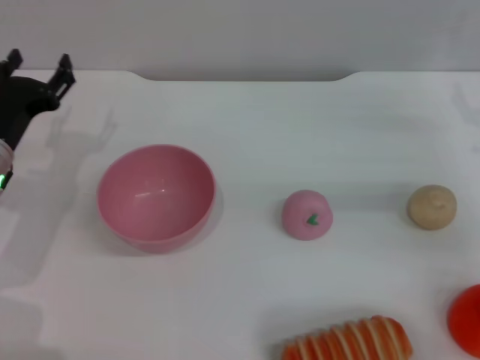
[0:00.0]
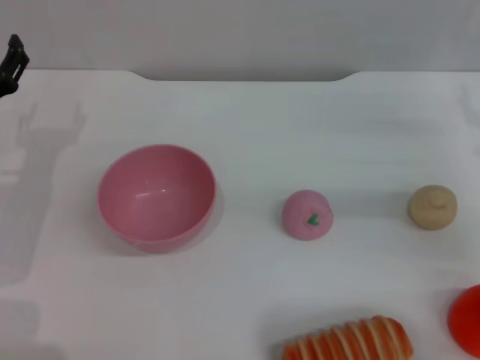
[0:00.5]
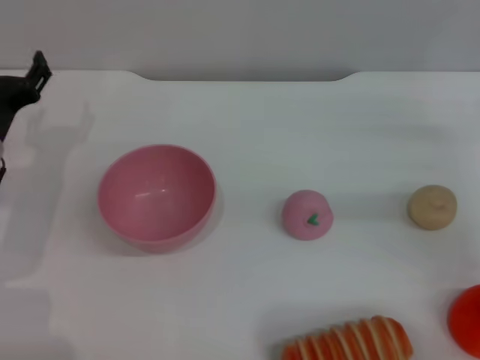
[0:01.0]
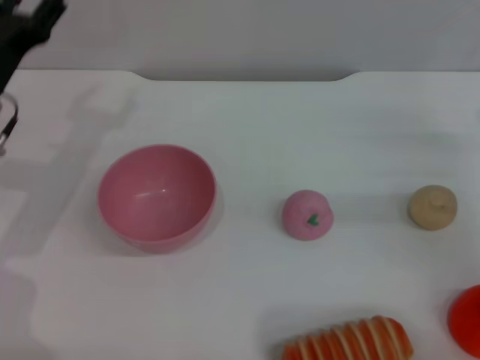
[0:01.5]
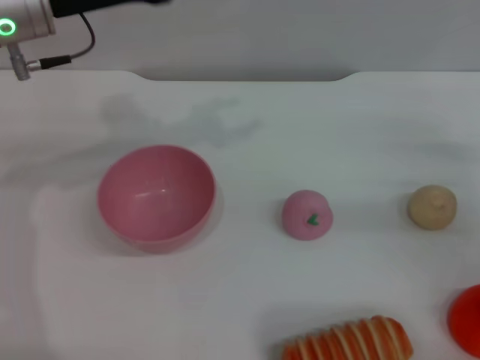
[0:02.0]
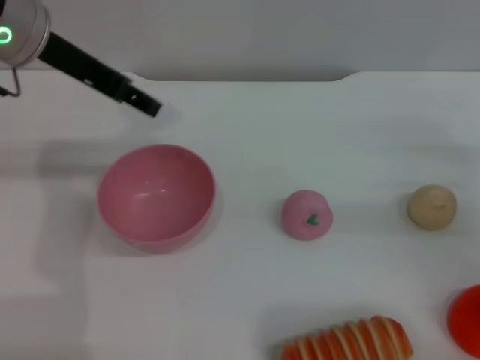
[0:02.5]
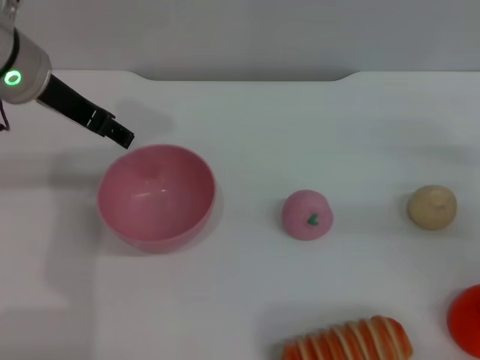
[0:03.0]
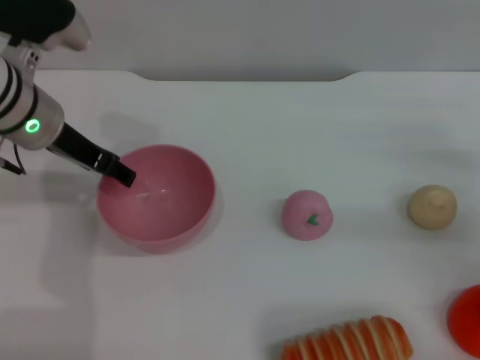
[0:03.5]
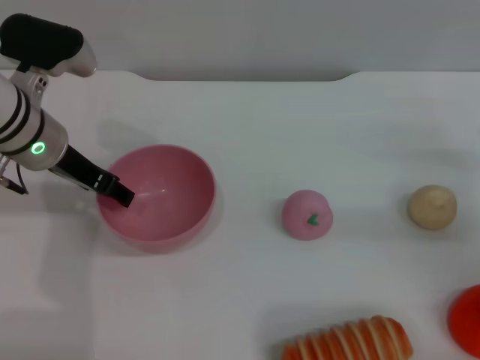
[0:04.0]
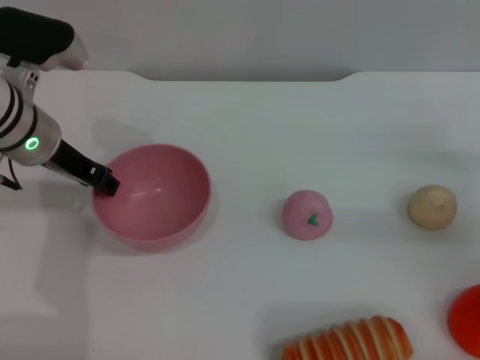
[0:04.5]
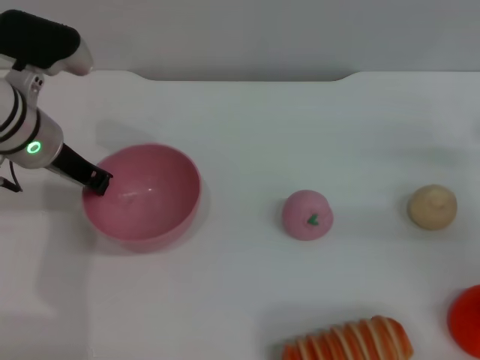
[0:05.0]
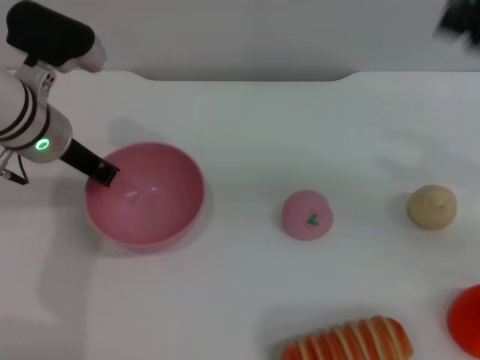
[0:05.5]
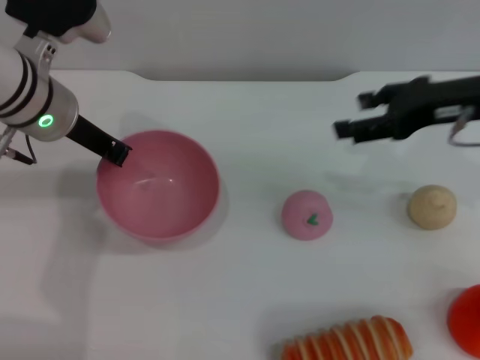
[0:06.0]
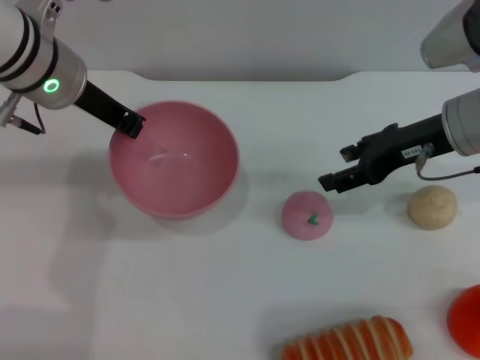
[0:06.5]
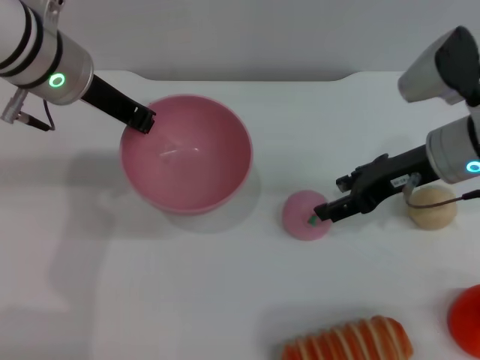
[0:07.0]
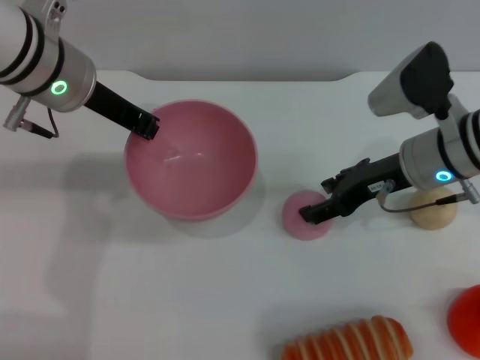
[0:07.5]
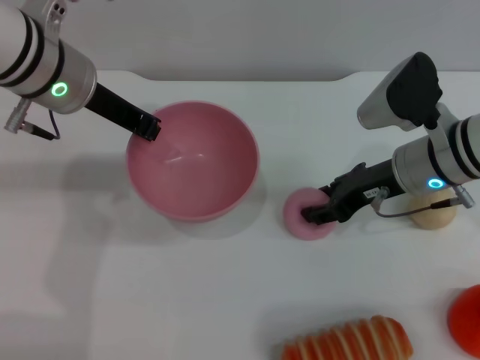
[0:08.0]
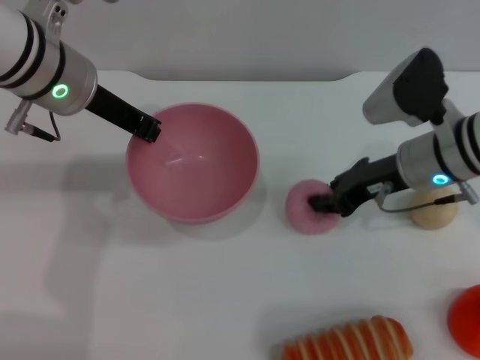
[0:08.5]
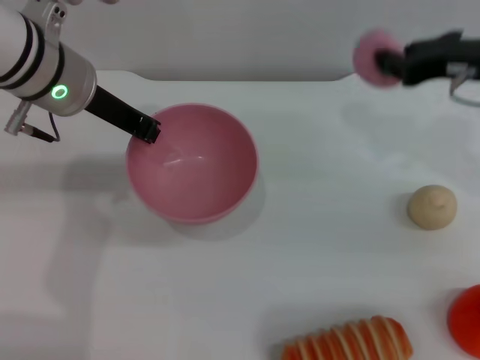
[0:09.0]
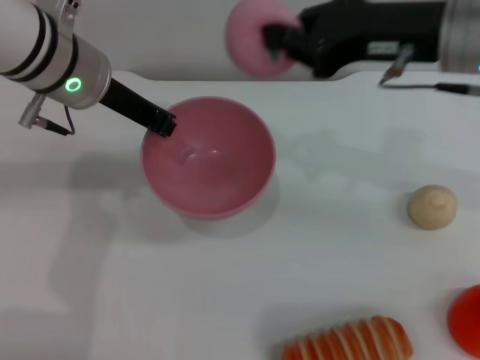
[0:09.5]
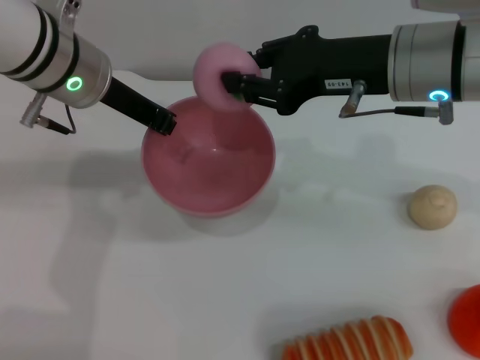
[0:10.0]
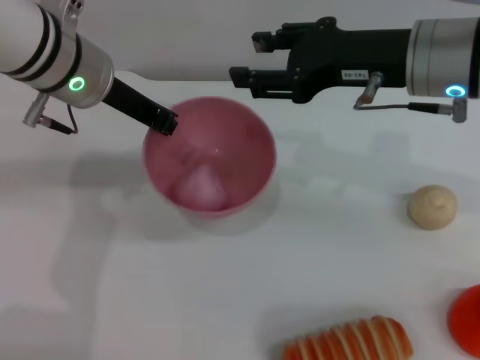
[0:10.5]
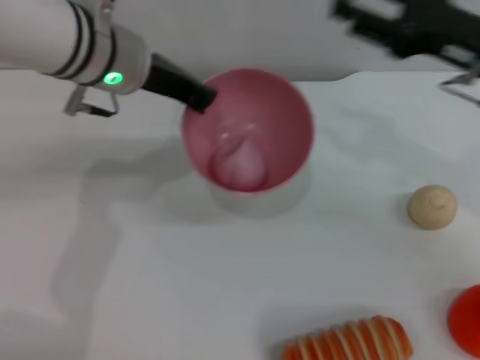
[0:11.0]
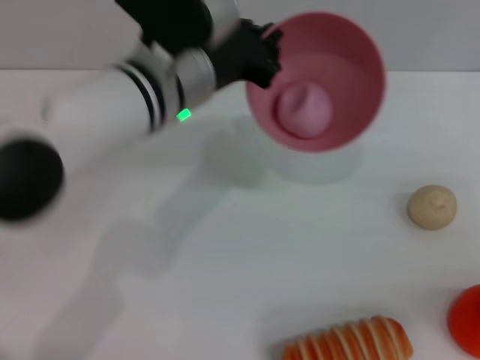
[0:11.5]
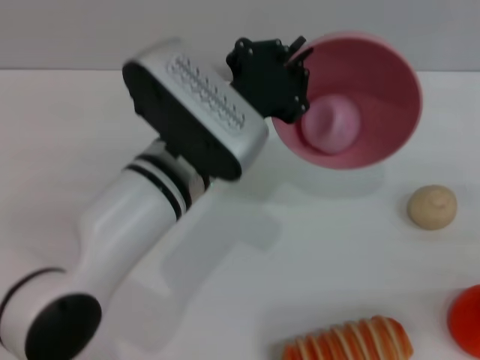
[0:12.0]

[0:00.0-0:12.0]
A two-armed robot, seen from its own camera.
Task of the whole recording: put the peach into the pink bowl and pour it out repeatedly.
Step, 0:00.0 to 0:06.5: Pick up the bowl with the left gripper.
Step, 0:07.0 to 0:08.5: Pick up the peach with the right gripper.
Step, 0:09.0 to 0:10.5: Place the peach into the bowl.
0:00.0 to 0:02.0: The left gripper is displaced upward by approximately 15 cm. The right gripper ends up approximately 5 cm from where it was.
0:02.0 to 0:04.0: The left gripper is displaced downward by some 10 cm.
0:04.0 to 0:06.0: The right gripper travels upward and to the left by approximately 15 cm. The left gripper closes up.
0:06.0 to 0:08.0: The right gripper shifts some 10 cm downward and to the left.
0:08.0 to 0:10.0: The right gripper heads upward, covering approximately 10 cm, and closes up.
0:10.0 to 0:12.0: The left gripper travels to the right, backward and downward by some 15 cm; the right gripper is displaced to the right, downward and backward by approximately 30 cm, and opens.

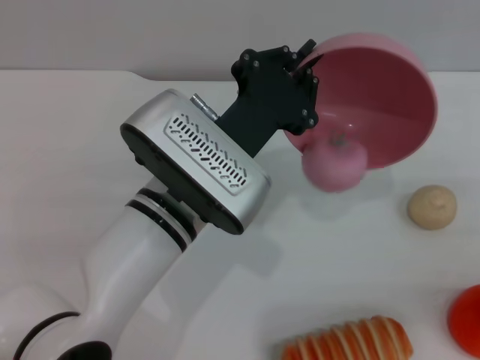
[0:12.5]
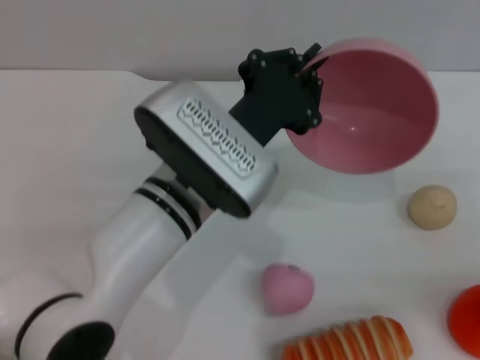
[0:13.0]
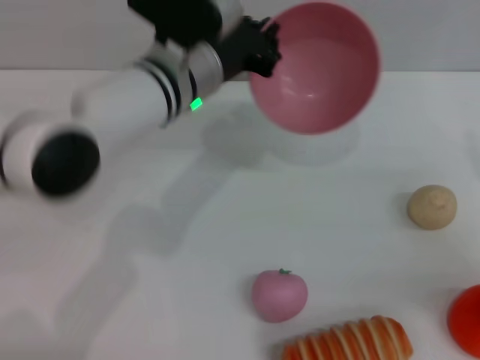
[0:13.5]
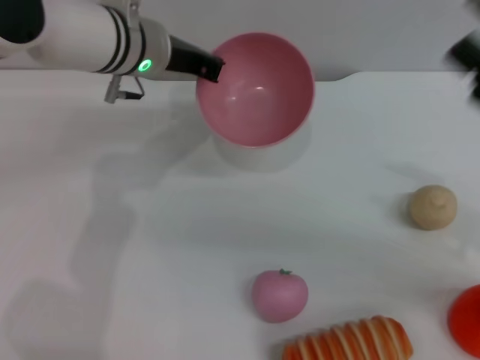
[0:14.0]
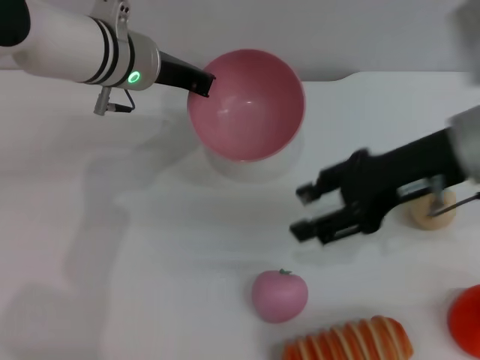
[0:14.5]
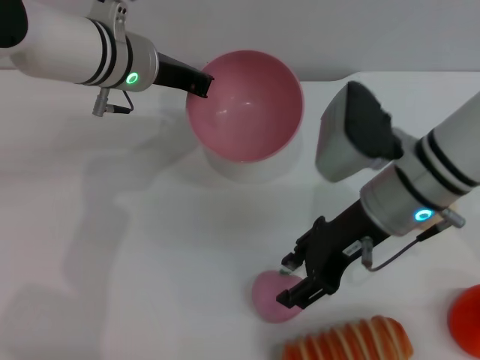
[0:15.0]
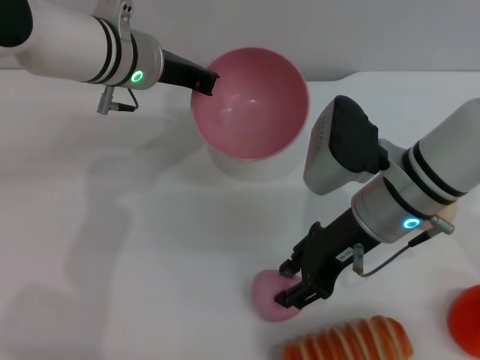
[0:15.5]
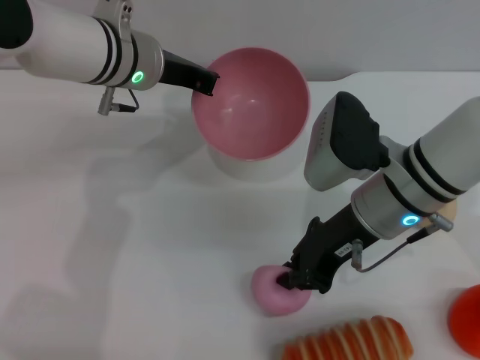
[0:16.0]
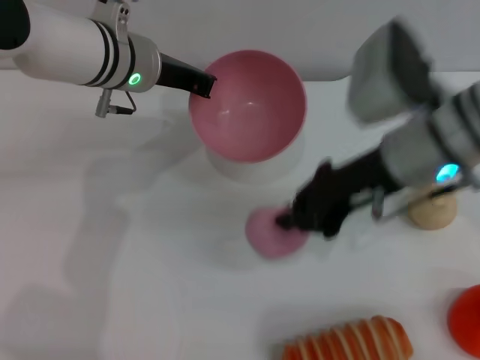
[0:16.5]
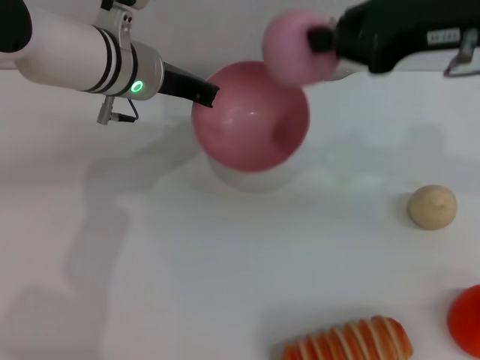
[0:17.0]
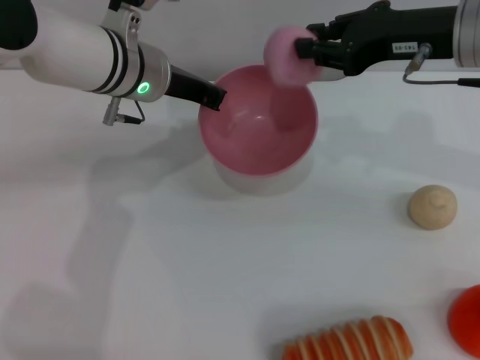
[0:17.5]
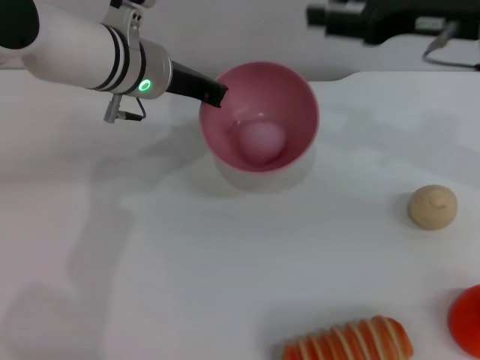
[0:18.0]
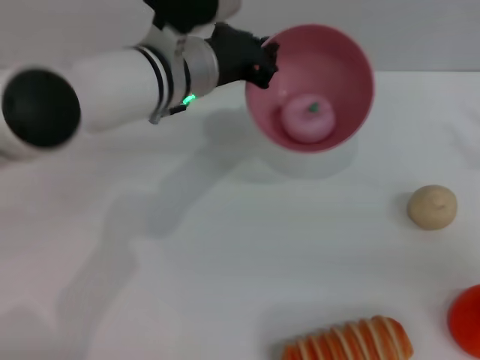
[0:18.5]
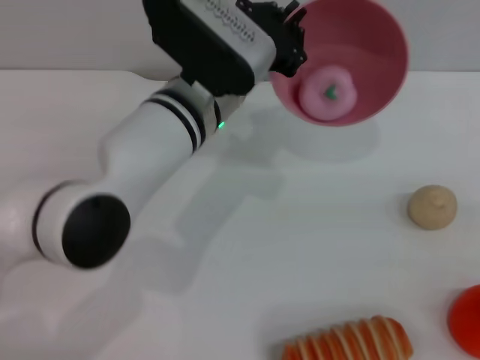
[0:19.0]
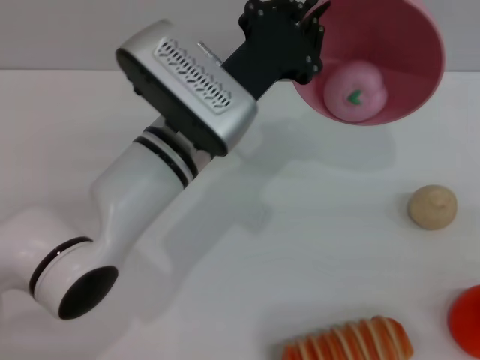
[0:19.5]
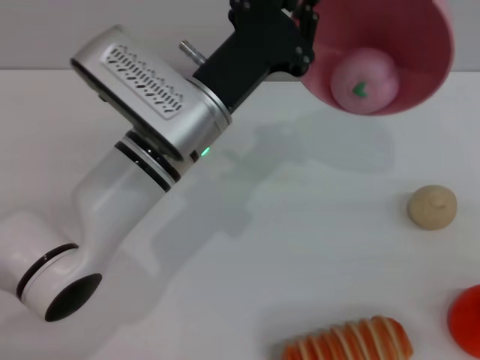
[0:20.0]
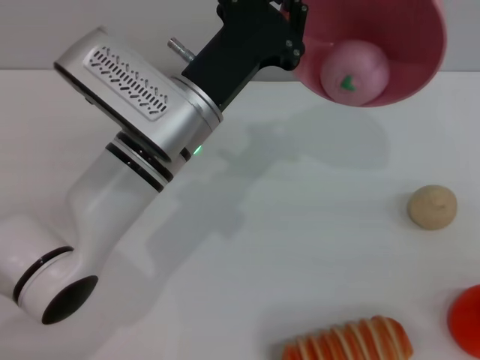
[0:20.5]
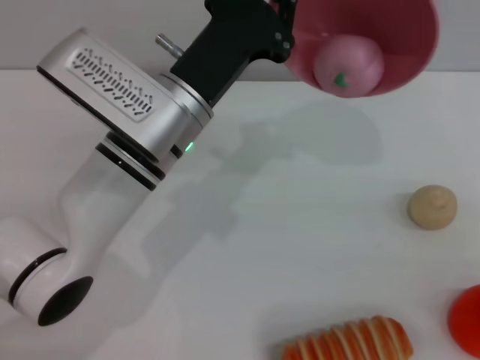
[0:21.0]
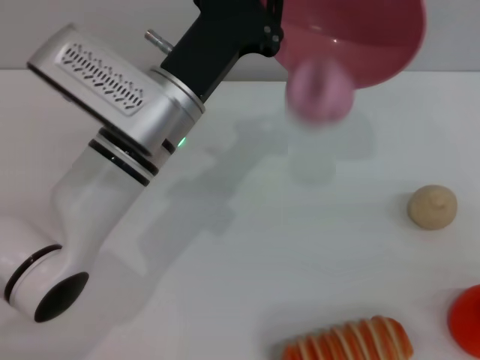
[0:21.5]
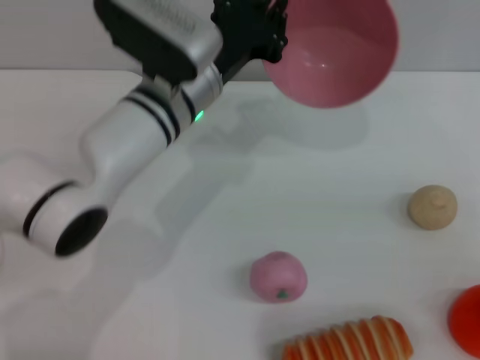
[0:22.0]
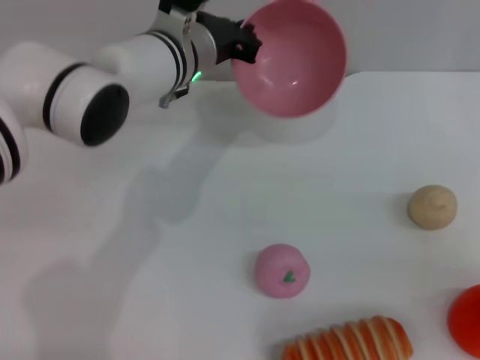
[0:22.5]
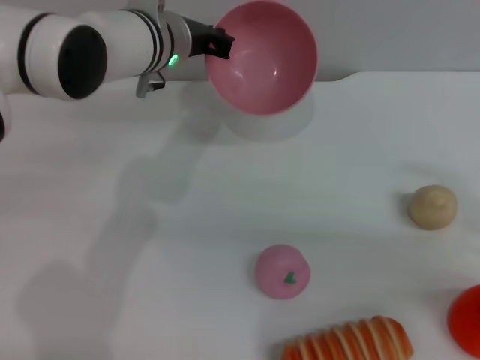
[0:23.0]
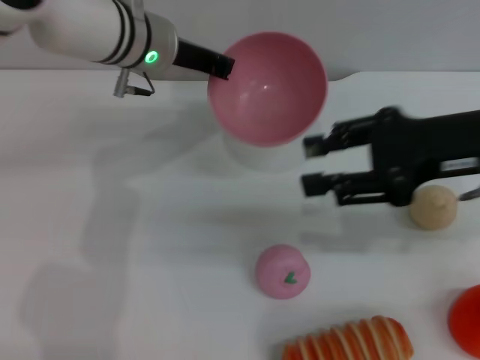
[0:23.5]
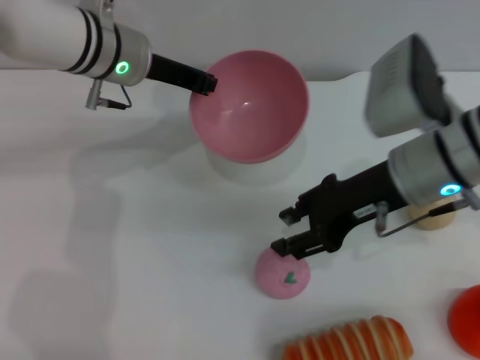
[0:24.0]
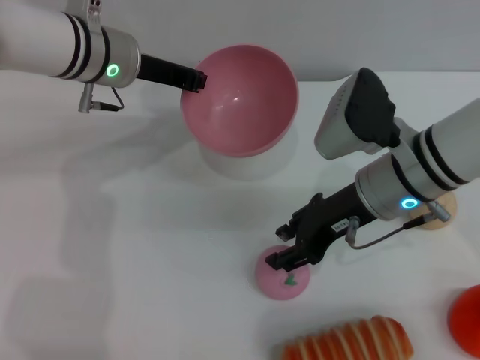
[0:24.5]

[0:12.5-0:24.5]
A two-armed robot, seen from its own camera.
Task of the whole recording: put the peach into the pink bowl and pour it out repeatedly.
Step, 0:13.5 to 0:16.5: Pick up the peach with the right gripper.
Step, 0:17.0 to 0:17.5: Place the peach into the bowl.
Step, 0:18.0 to 0:22.0: Pour the peach out of bowl.
0:12.5 to 0:14.5: The left gripper shifts roughly 15 cm forward and to the left. The right gripper goes some 20 cm to the left, upward and forward.
0:14.5 to 0:16.5: The right gripper moves roughly 10 cm downward and comes back, and closes its fingers.
0:16.5 to 0:18.5: The right gripper shifts some 20 cm to the right, and opens its fingers; the left gripper is displaced to the right by roughly 5 cm.
0:18.5 to 0:20.5: Both grippers travel together backward, approximately 5 cm.
0:20.5 to 0:22.5: The left gripper shifts approximately 10 cm forward.
0:22.5 to 0:24.5: The right gripper heads to the left and forward, covering roughly 25 cm; the left gripper moves to the left, roughly 10 cm.

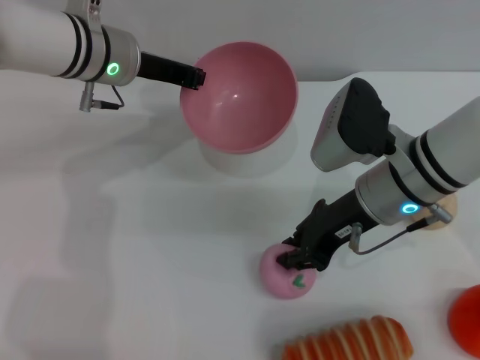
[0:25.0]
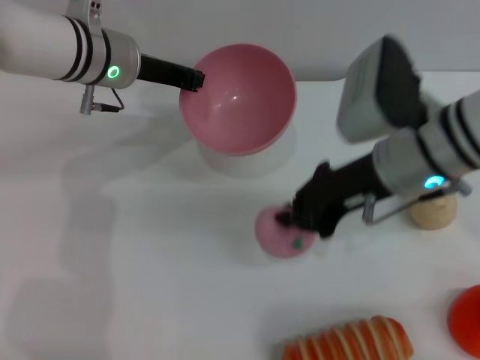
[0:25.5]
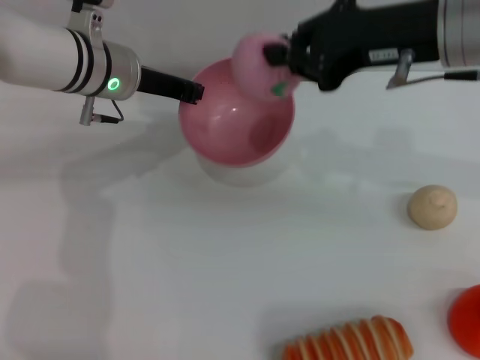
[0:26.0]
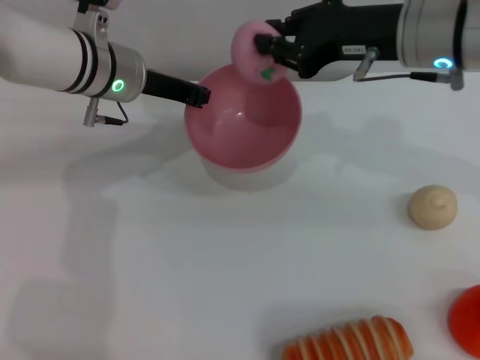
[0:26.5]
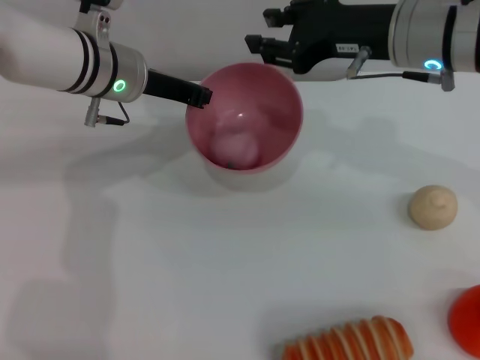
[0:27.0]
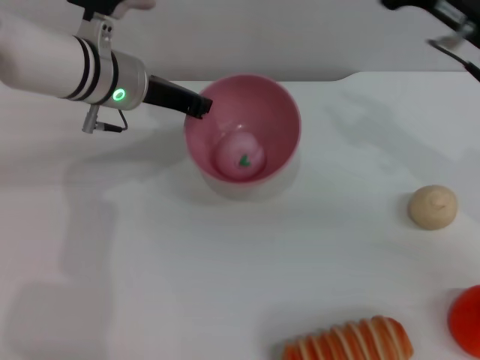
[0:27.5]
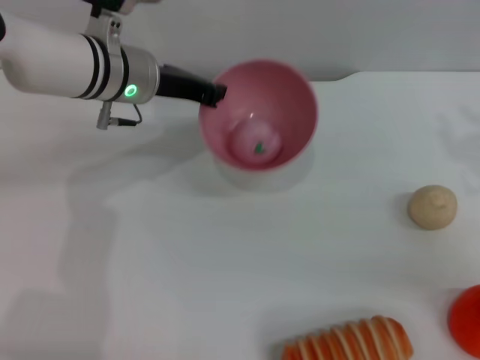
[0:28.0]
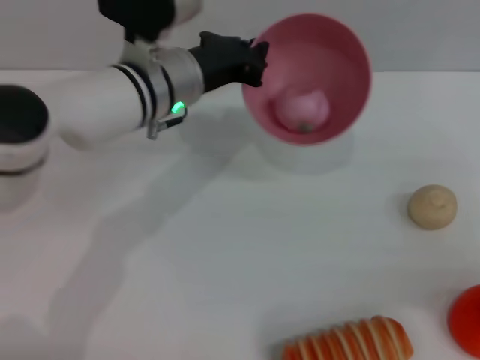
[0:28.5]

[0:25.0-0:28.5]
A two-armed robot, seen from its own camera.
Task of the whole recording: put the peach into the pink bowl and pour it out repeatedly.
Step, 0:26.0 to 0:26.5: Place the peach into the bowl.
0:25.0 to 0:27.0: The right gripper shifts approximately 10 cm upward, and closes and opens again.
0:27.0 to 0:28.5: The left gripper heads to the right, covering about 5 cm. Meanwhile the right gripper is displaced to the right, backward and downward by approximately 25 cm.
